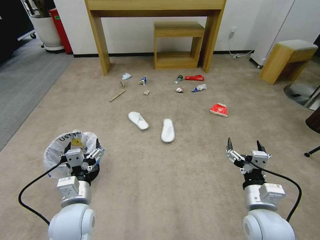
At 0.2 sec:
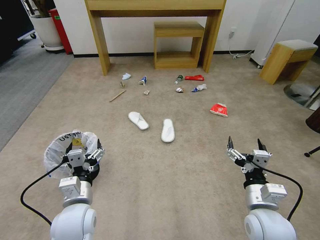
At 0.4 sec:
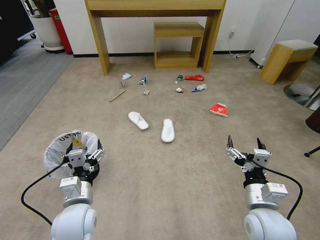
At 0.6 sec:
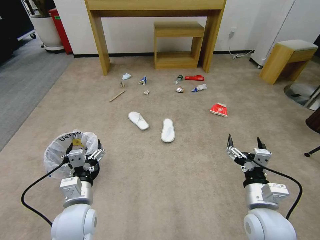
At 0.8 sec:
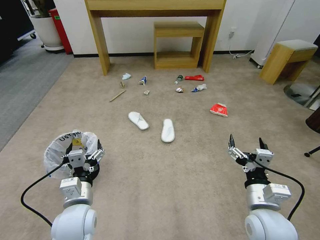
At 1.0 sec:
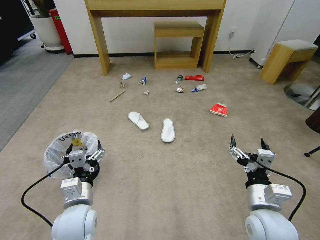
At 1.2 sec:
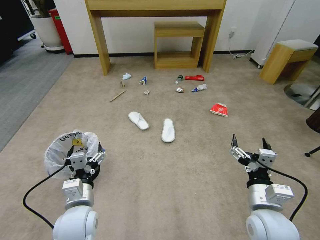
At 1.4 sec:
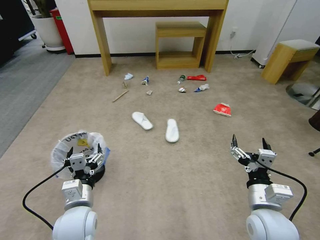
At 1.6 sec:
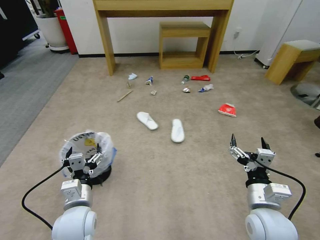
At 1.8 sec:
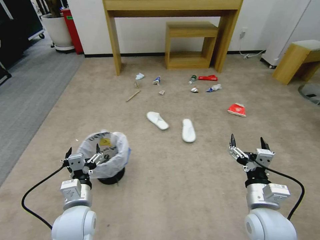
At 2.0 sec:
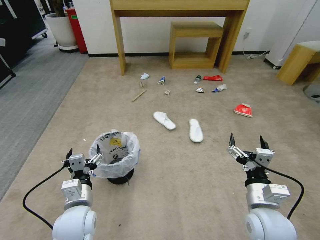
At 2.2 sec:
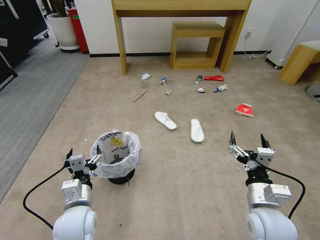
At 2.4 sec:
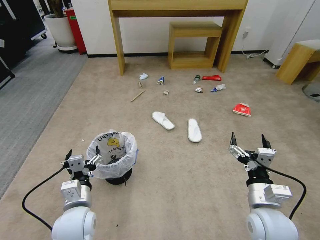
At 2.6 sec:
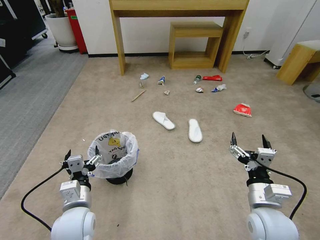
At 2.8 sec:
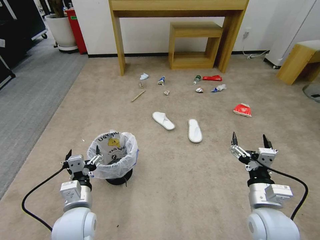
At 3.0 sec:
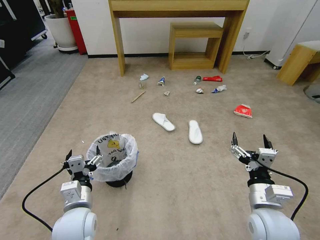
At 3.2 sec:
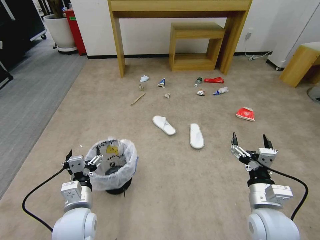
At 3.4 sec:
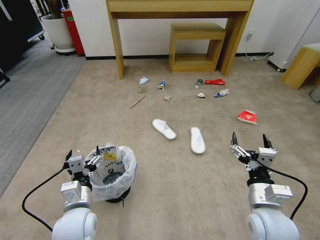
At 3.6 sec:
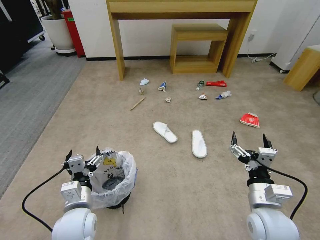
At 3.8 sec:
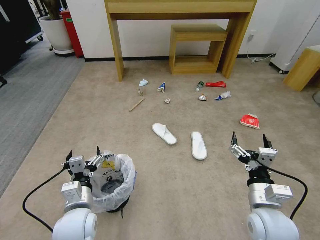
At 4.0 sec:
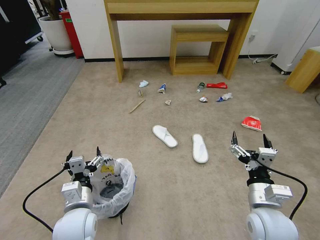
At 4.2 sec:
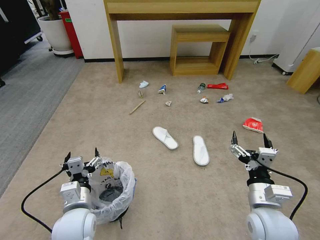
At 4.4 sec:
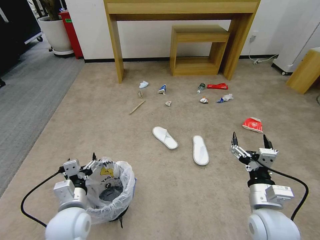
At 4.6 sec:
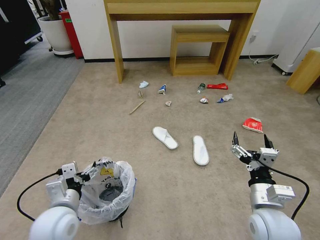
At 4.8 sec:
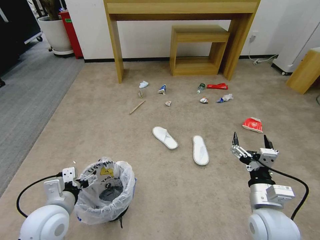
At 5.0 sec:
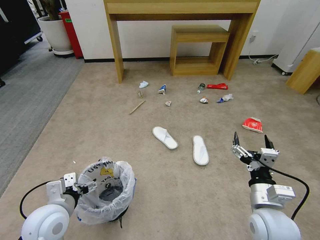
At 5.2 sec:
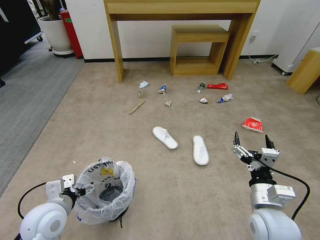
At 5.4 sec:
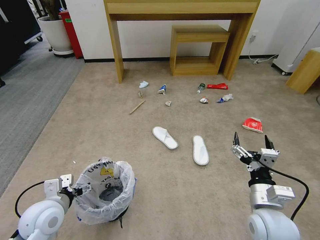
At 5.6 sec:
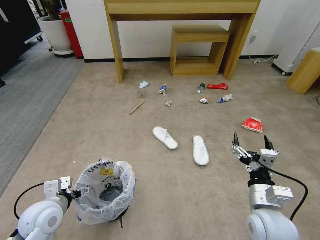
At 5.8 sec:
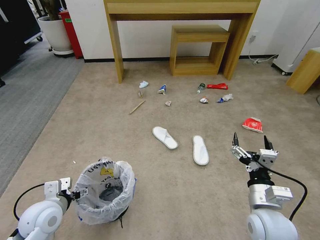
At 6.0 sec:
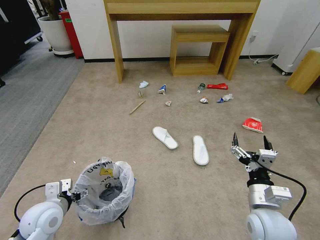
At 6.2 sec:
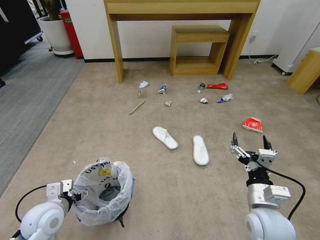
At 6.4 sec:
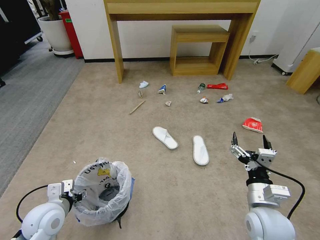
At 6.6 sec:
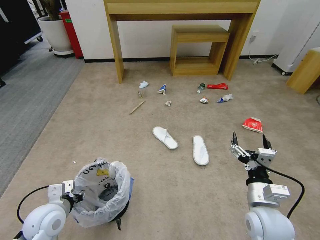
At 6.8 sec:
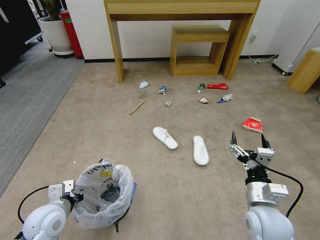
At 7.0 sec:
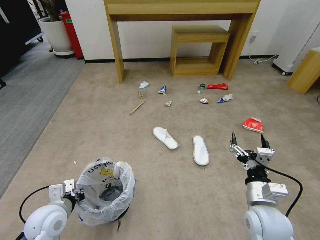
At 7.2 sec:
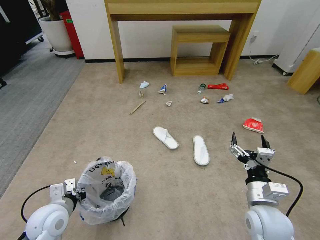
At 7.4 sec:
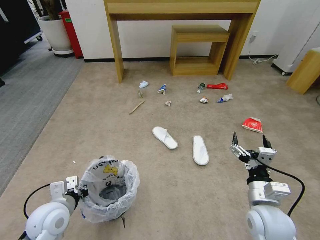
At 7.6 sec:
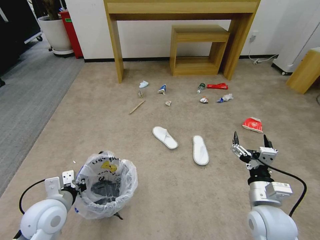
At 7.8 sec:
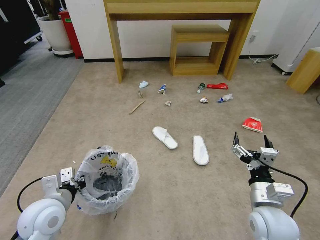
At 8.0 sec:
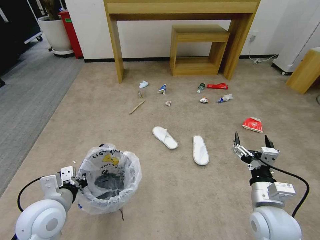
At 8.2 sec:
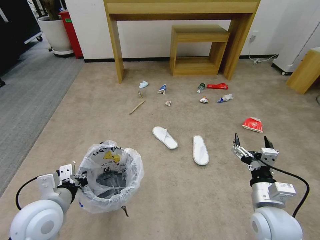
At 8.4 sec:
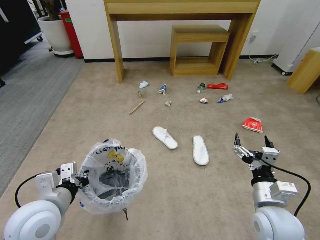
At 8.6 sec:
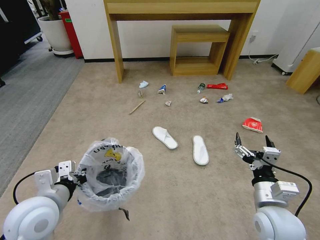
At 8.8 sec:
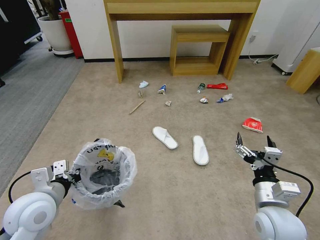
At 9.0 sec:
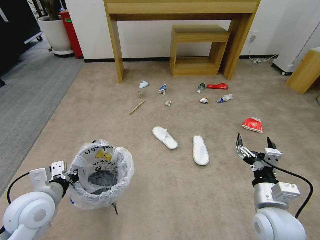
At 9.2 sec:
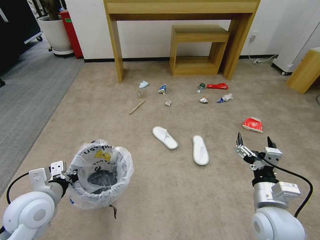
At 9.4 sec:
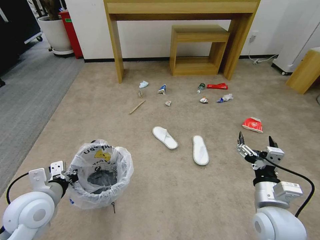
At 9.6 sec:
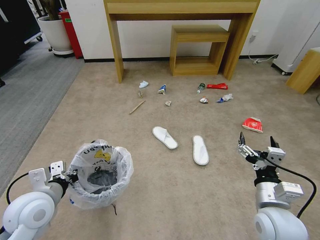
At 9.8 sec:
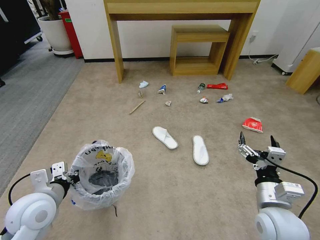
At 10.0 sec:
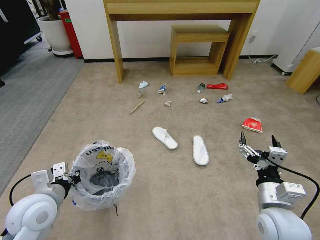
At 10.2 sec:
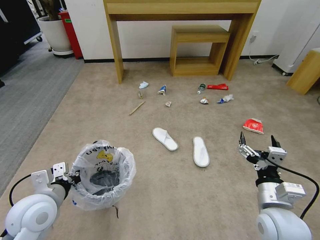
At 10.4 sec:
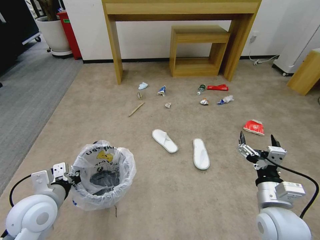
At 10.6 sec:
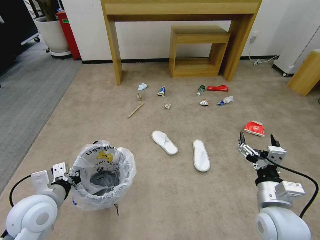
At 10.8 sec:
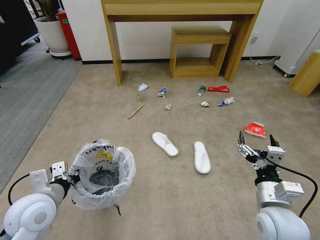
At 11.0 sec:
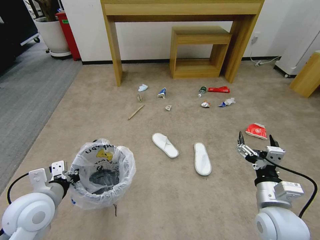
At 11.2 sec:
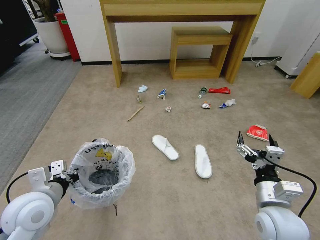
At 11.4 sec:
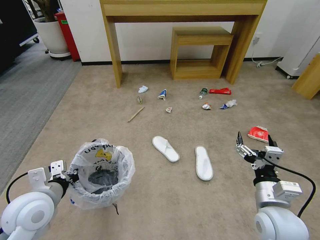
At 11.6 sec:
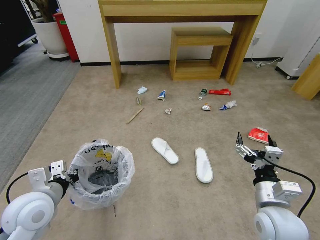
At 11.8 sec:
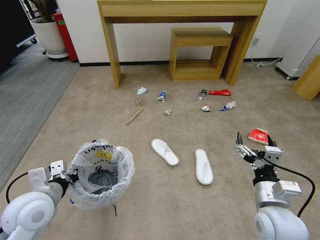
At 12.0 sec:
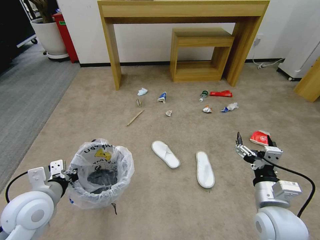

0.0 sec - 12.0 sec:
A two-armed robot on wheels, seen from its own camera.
Task of the whole recording: Pick up the trash bin and place the garbage on the floor into it.
4.4 sec - 6.0 sec: The left gripper heads to the left, covering roughly 10 cm.
6.0 sec - 7.6 sec: The left gripper closes up.
9.0 sec - 10.4 sec: Both grippers stay about where they are.

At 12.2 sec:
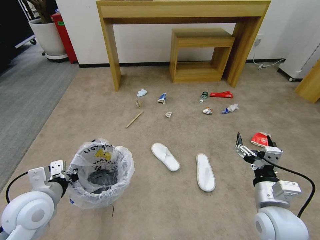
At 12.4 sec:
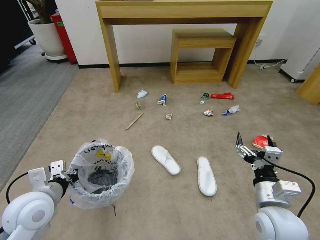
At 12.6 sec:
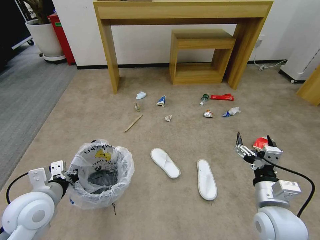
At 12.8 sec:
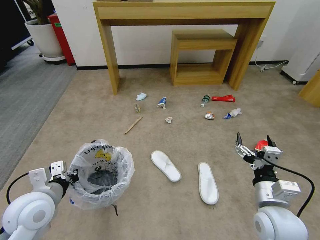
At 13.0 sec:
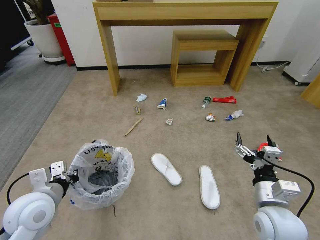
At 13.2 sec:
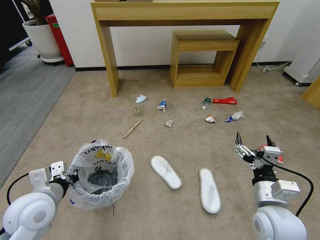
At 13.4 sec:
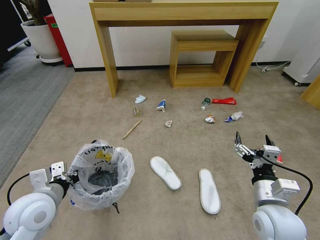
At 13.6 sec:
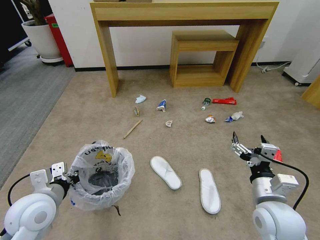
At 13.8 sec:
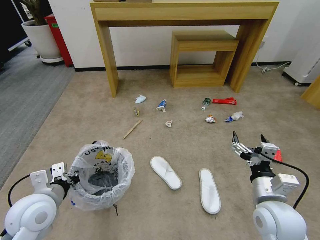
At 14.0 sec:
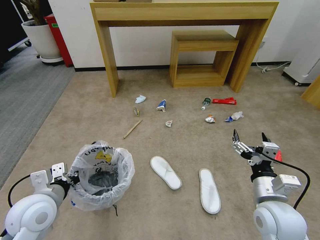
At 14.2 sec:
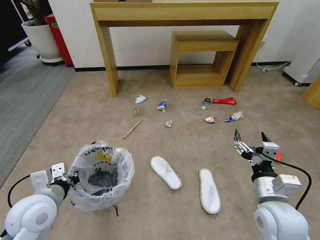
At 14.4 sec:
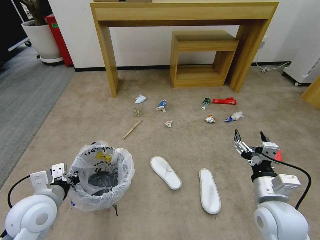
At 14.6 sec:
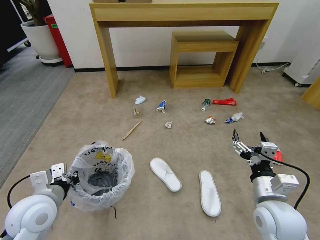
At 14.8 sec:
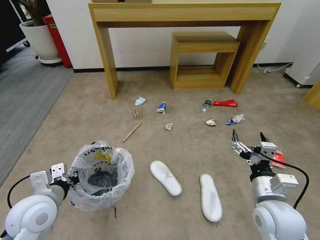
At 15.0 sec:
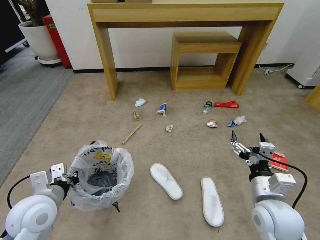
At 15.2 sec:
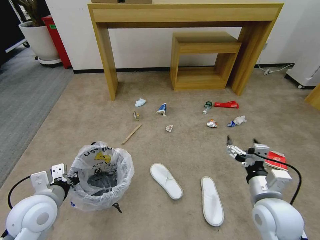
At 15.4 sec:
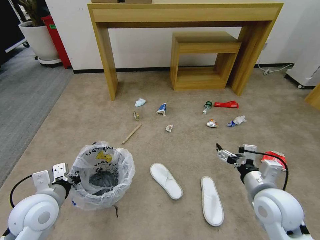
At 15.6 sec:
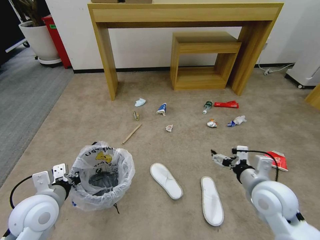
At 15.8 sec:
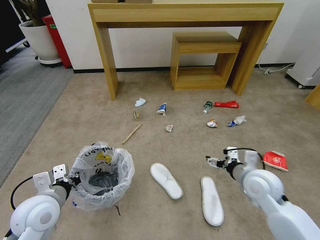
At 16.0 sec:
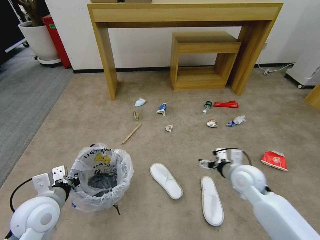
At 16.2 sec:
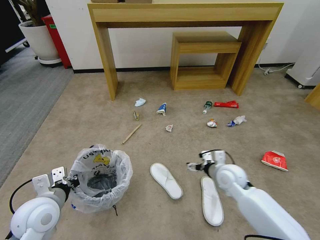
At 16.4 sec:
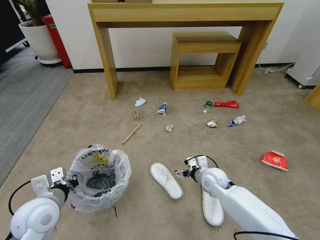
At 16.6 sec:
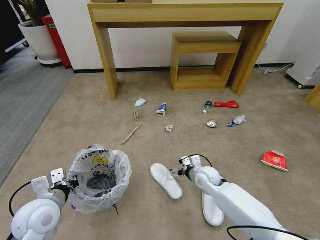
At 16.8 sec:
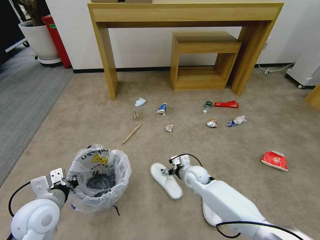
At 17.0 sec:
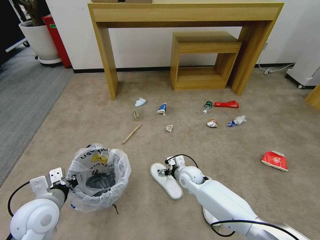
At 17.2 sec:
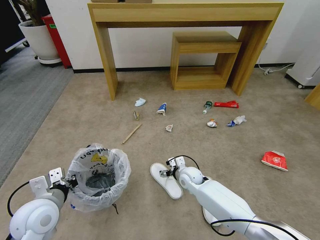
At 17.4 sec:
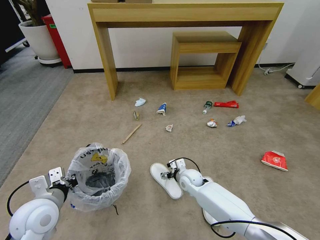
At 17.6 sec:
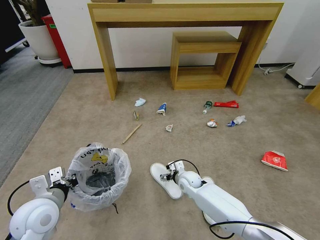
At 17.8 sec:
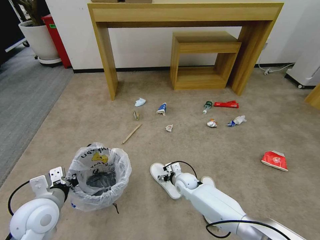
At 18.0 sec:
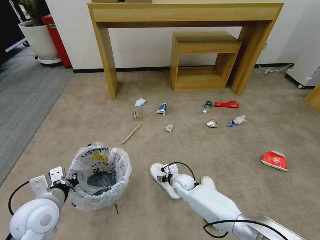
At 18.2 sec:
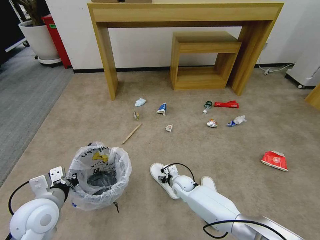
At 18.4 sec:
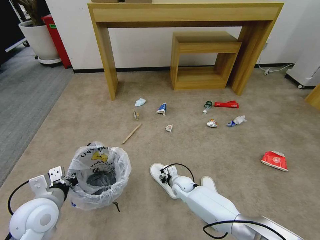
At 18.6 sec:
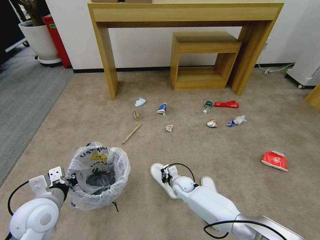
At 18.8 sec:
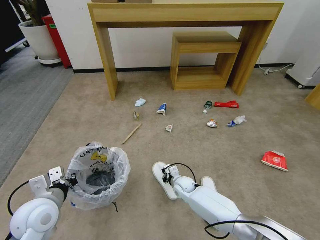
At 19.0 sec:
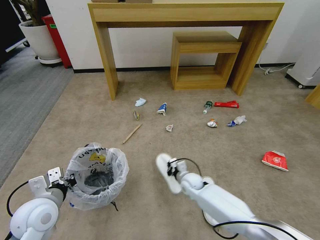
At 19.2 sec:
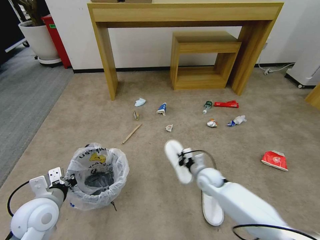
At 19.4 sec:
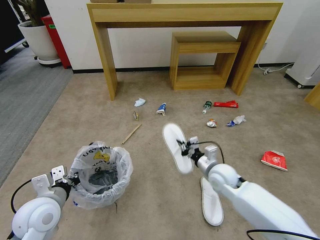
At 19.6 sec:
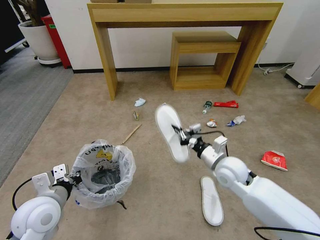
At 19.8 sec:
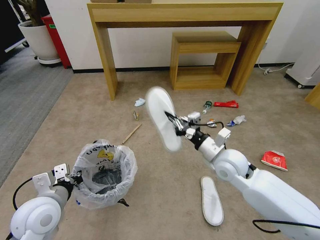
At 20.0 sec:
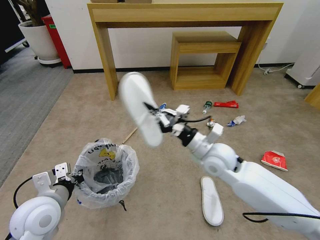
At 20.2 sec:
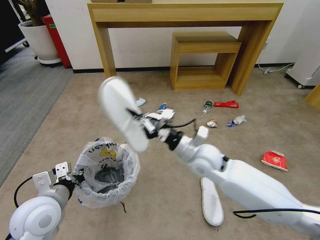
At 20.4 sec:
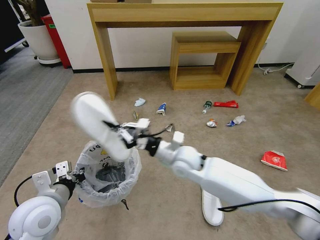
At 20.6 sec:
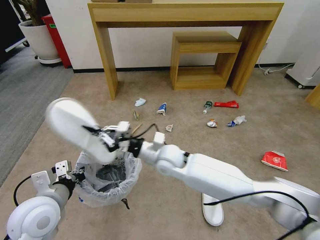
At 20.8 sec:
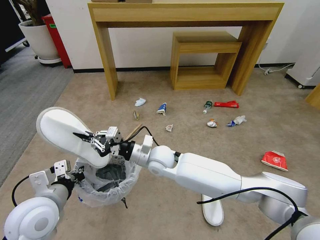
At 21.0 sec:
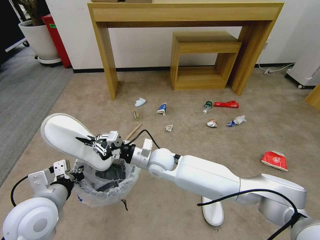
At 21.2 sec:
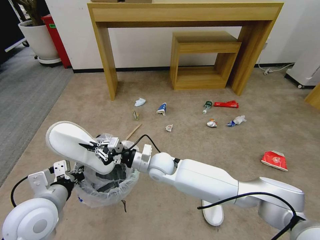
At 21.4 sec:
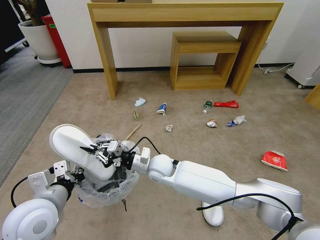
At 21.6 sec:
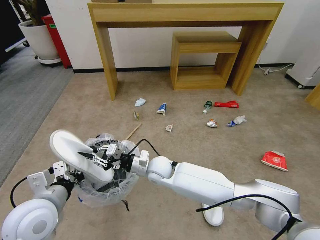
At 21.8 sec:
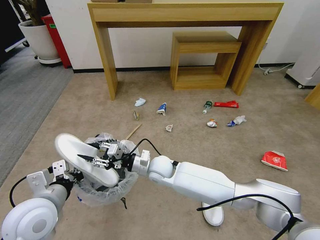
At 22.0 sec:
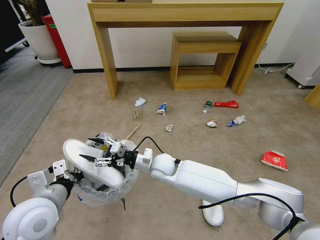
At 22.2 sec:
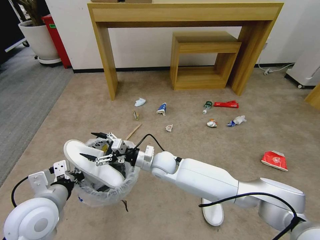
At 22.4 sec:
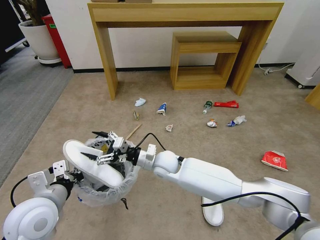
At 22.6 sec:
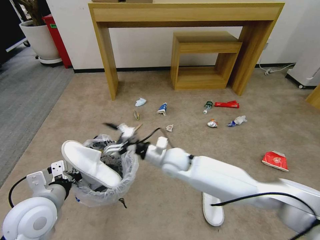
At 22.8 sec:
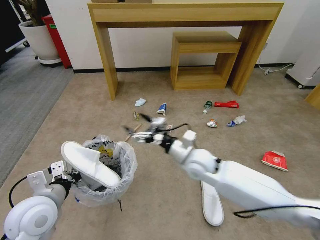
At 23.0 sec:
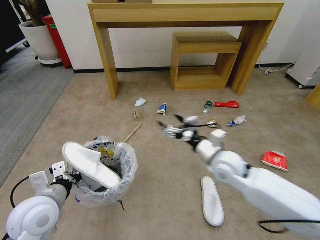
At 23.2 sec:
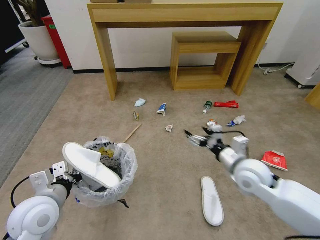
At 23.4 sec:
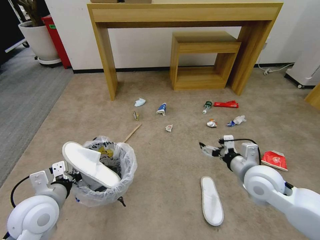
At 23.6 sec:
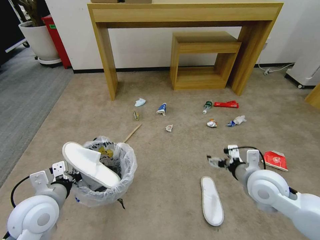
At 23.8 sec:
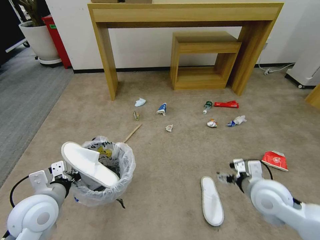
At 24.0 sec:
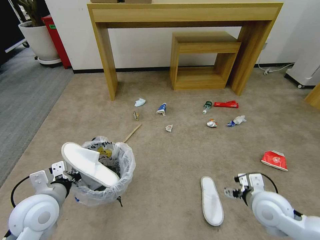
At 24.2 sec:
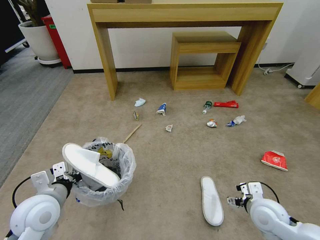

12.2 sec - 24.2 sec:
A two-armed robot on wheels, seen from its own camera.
Task of the whole recording: Pick up the trash bin and place the garbage on the floor into it.
13.8 sec - 15.2 sec: There are only small adjustments of the grippers.
15.2 sec - 16.6 sec: The right gripper heads forward, downward and to the left, covering some 25 cm.
16.6 sec - 18.2 sec: The right gripper travels downward and to the left by approximately 15 cm, and closes up.
18.2 sec - 19.8 sec: The right gripper goes approximately 30 cm upward and to the right, and closes.
19.8 sec - 21.2 sec: The right gripper is displaced to the left by about 20 cm.
21.2 sec - 22.6 sec: The right gripper opens.
22.6 sec - 24.2 sec: The right gripper travels to the right and backward by approximately 30 cm.
